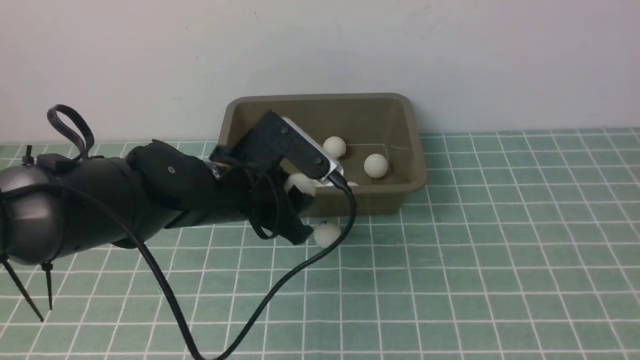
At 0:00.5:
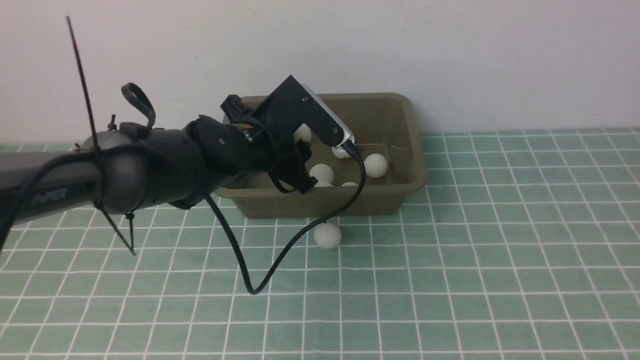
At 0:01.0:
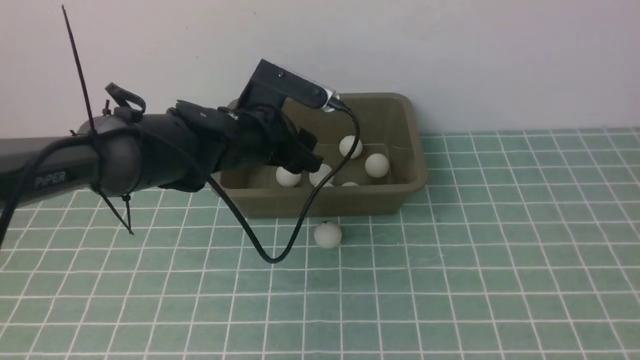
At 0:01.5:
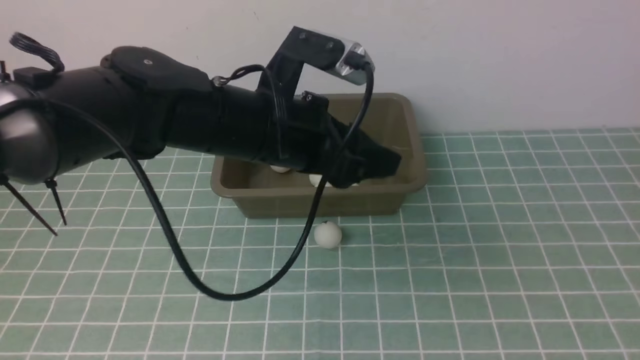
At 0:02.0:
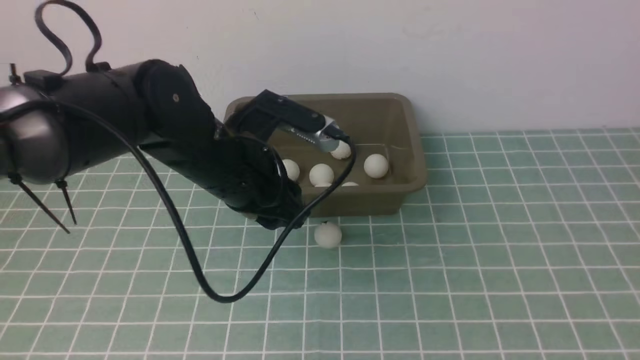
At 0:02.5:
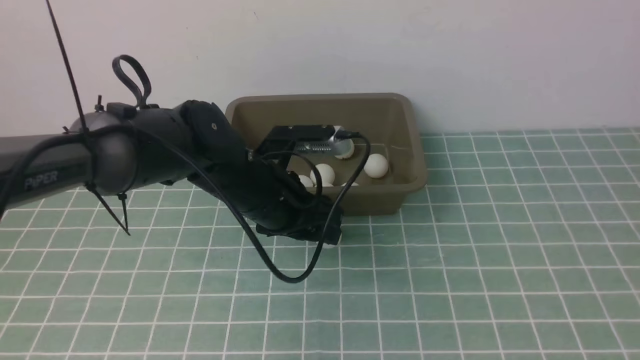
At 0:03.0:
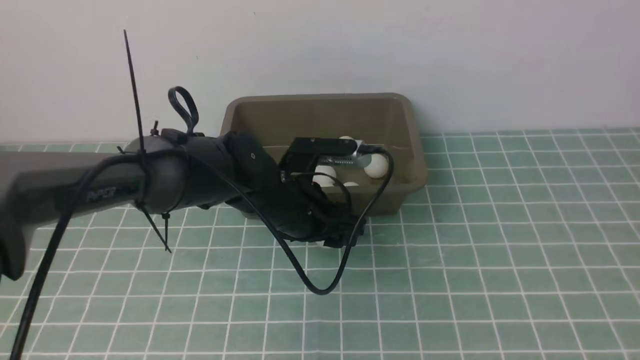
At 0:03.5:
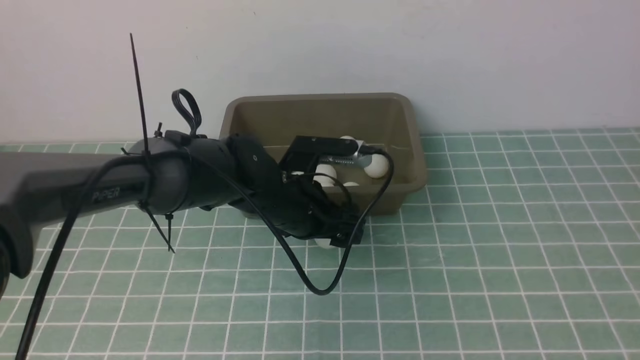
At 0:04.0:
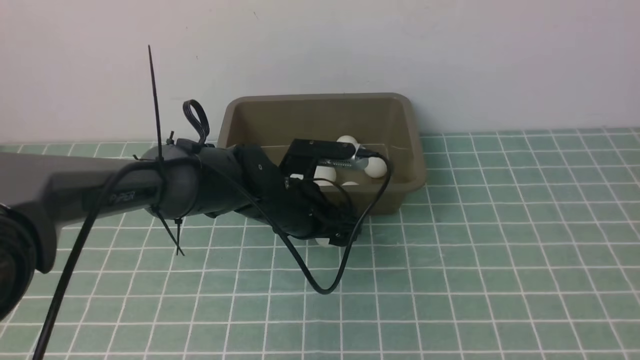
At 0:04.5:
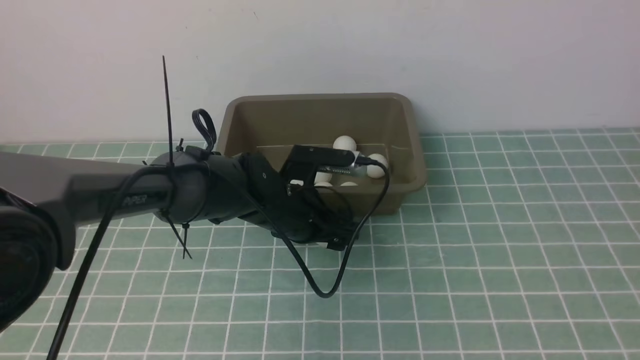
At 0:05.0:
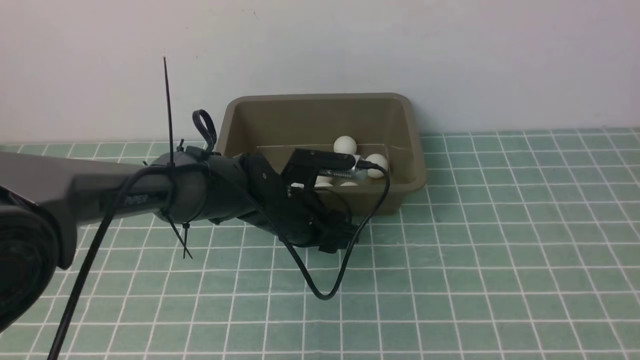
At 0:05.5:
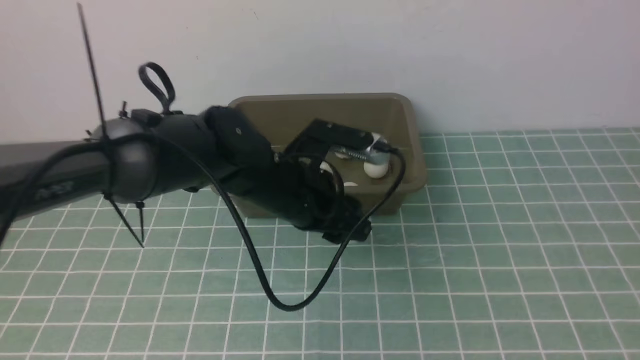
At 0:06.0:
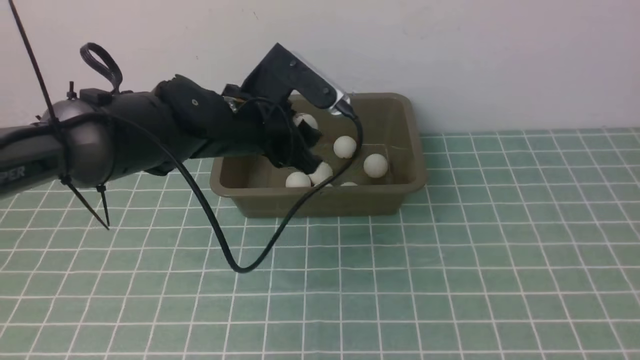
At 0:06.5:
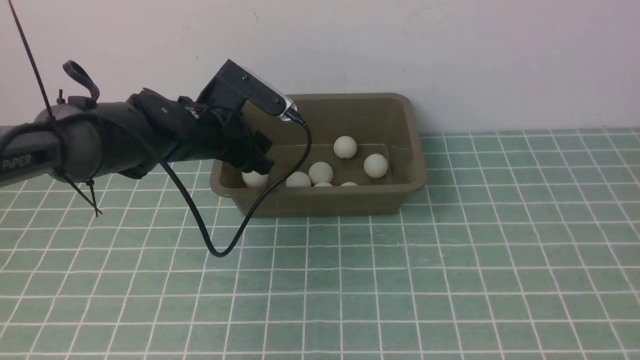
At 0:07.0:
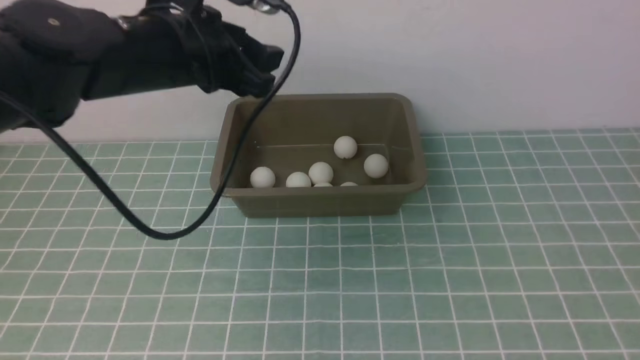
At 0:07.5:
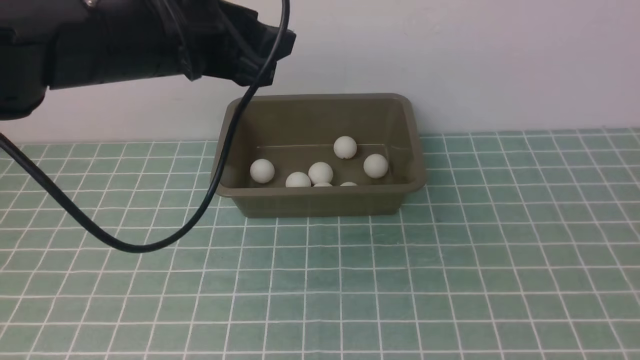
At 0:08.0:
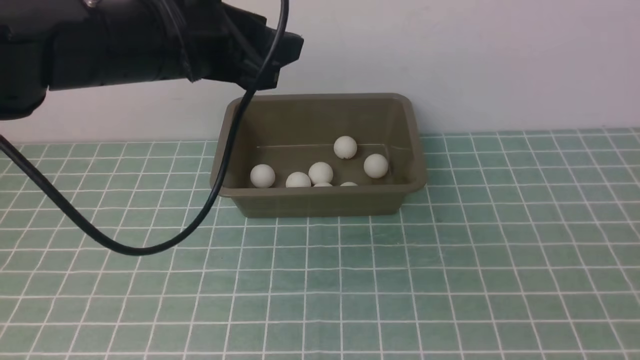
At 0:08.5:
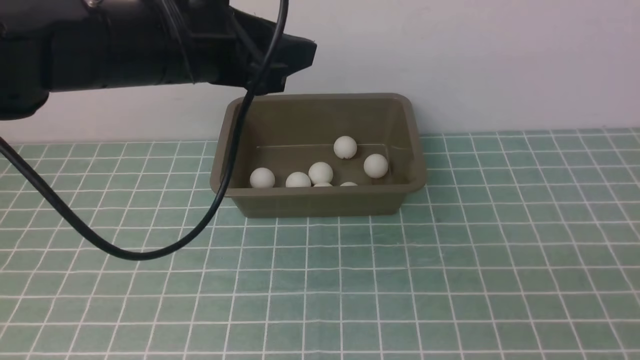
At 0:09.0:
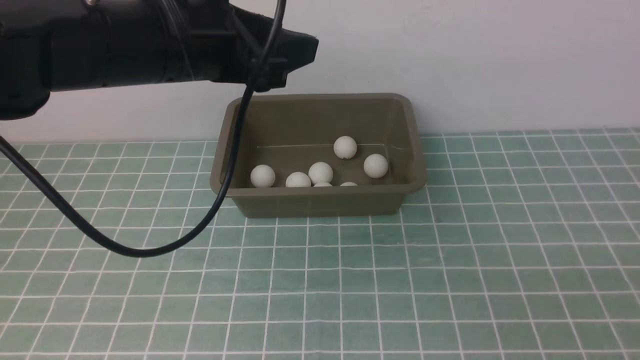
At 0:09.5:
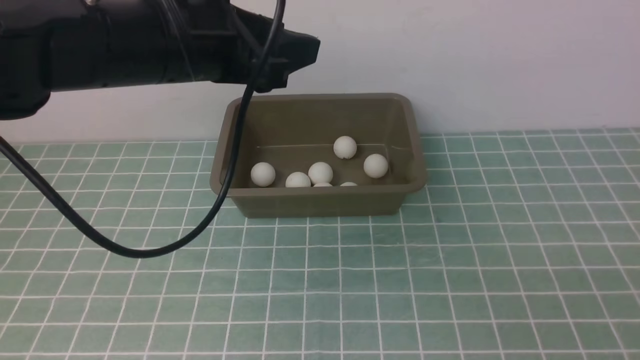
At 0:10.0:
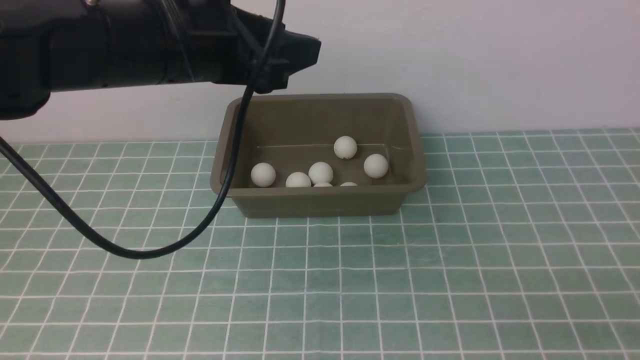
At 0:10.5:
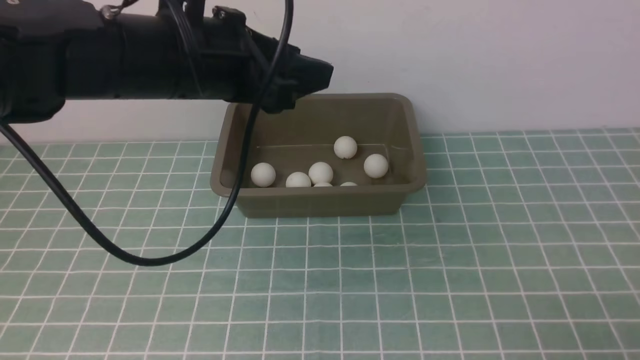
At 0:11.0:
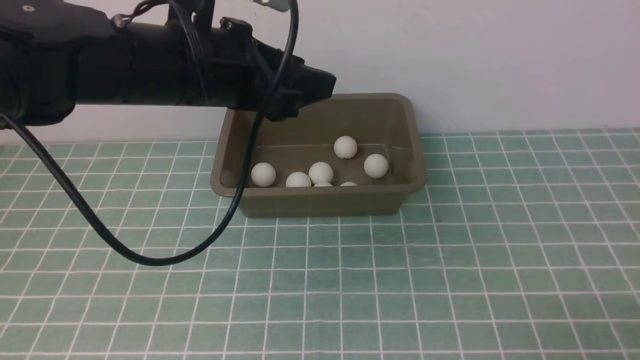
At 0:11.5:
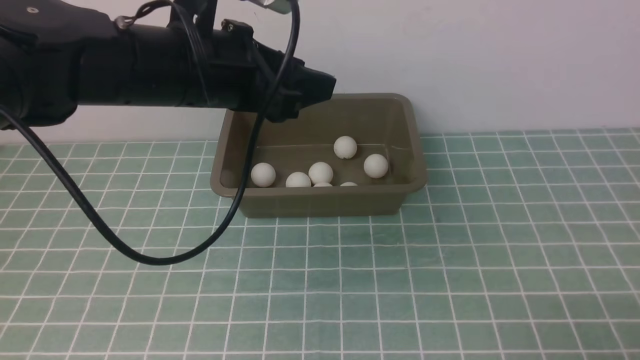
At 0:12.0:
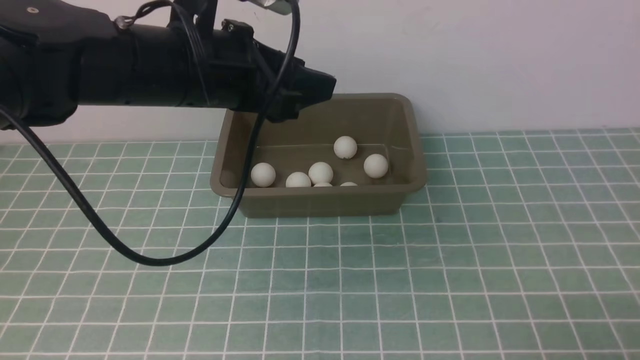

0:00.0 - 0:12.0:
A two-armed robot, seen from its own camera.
Step, 0:00.5 - 0:01.0: use the left arm to put the table tennis ball into the box.
Step, 0:01.5 - 0:05.0: use the left arm to clamp the table tennis ball closest to it.
Step, 0:05.5 - 0:06.5: use the left arm to put the table tennis ball into the box.
0:00.0 - 0:02.0: The left gripper opens, then closes once more.
0:02.0 - 0:04.0: The left gripper goes roughly 10 cm downward, and opens up.
0:04.0 - 0:06.0: The left gripper goes about 10 cm upward and to the left, and closes.
0:06.0 - 0:08.0: The right gripper is displaced downward by approximately 20 cm; the left gripper is displaced upward and backward by approximately 15 cm.
0:08.0 - 0:10.0: The right gripper goes approximately 10 cm downward.
0:10.0 - 0:12.0: The grippers move only a little.

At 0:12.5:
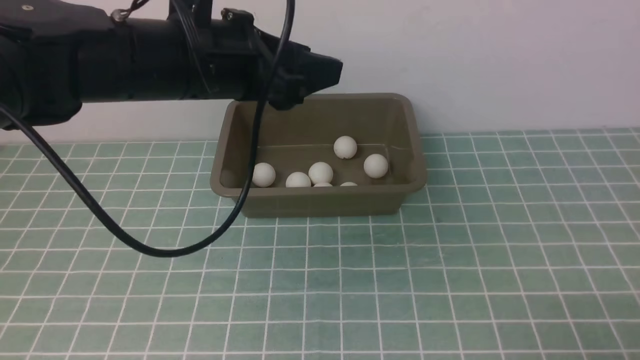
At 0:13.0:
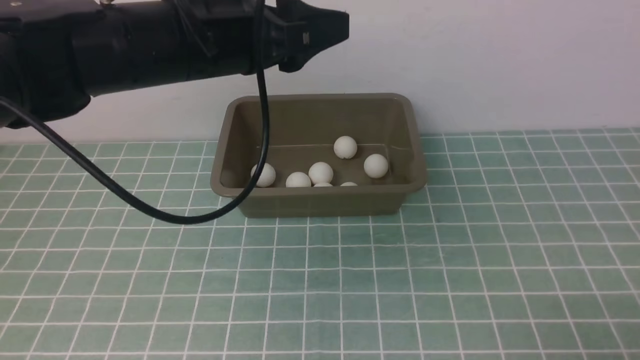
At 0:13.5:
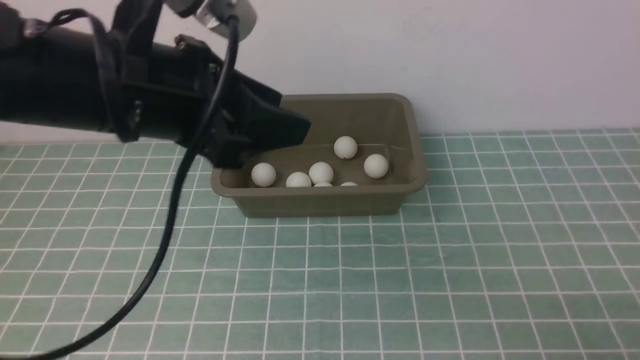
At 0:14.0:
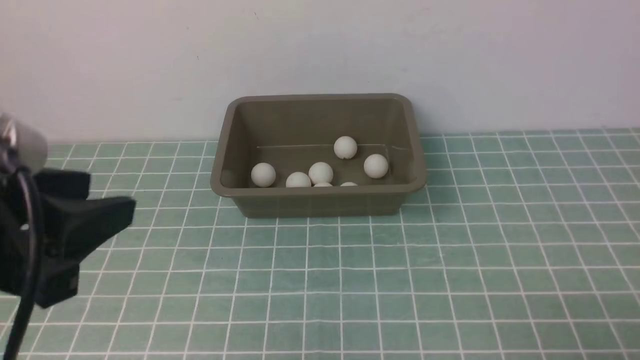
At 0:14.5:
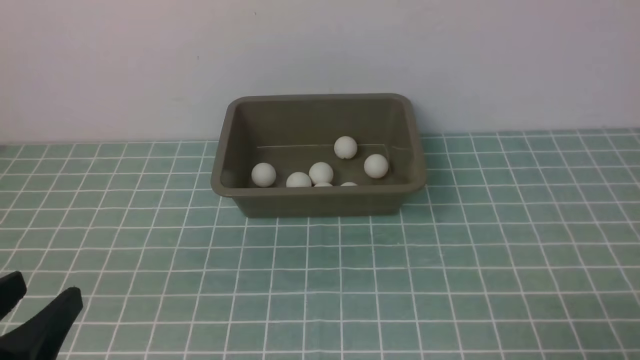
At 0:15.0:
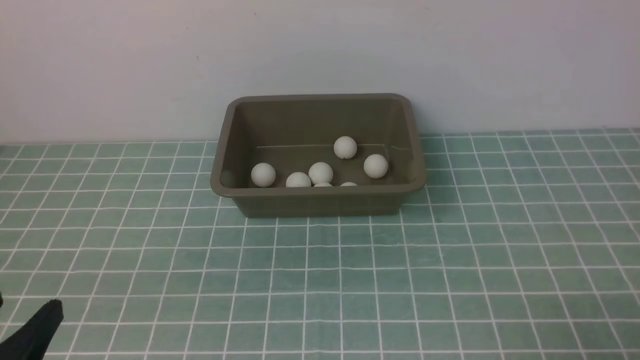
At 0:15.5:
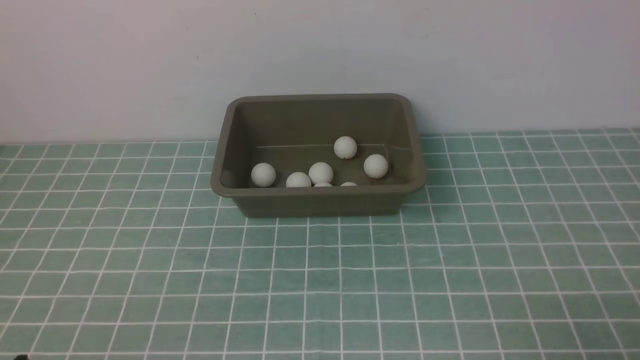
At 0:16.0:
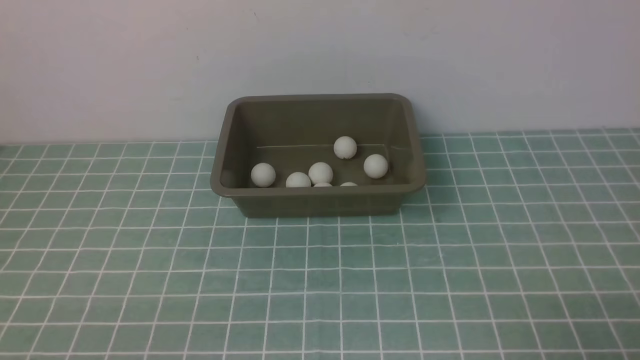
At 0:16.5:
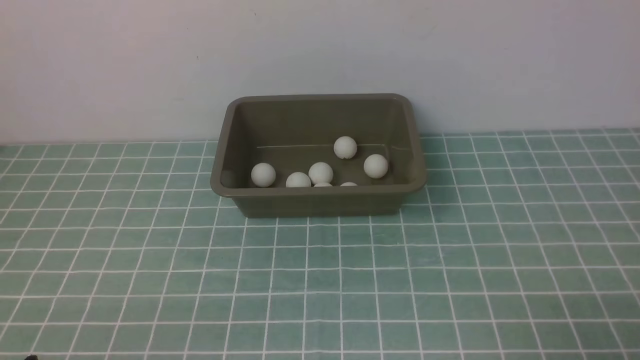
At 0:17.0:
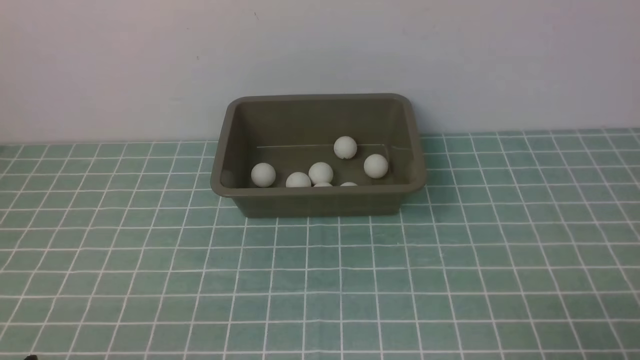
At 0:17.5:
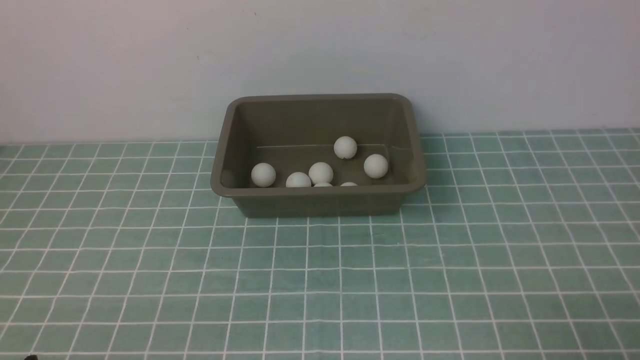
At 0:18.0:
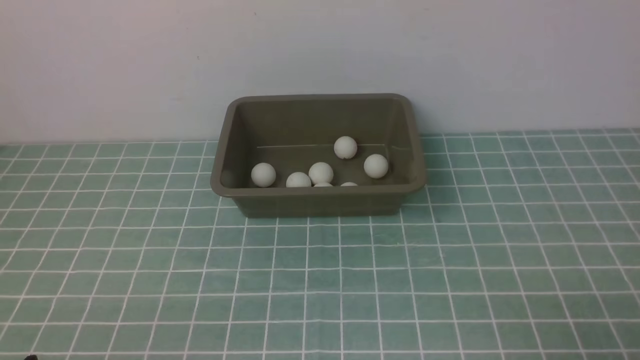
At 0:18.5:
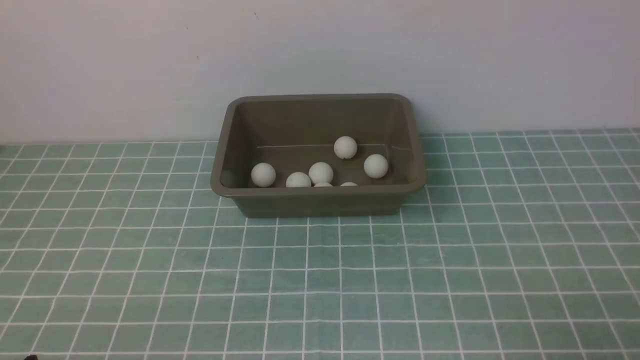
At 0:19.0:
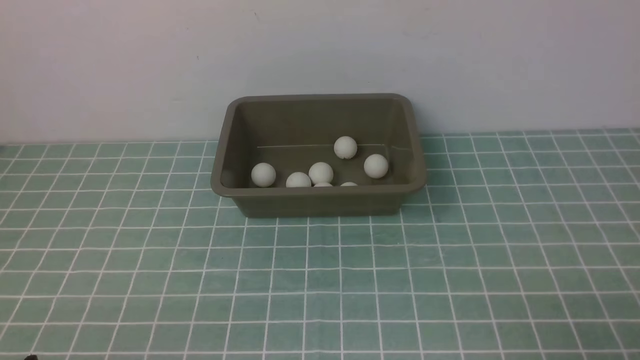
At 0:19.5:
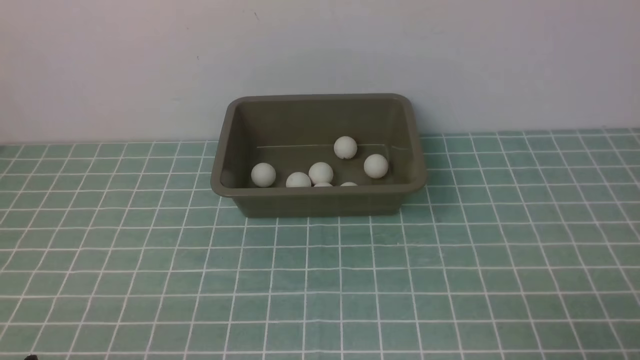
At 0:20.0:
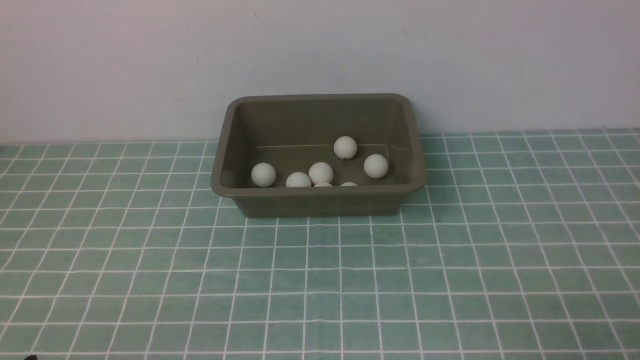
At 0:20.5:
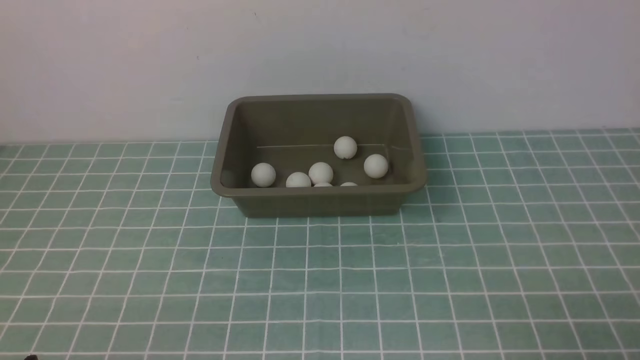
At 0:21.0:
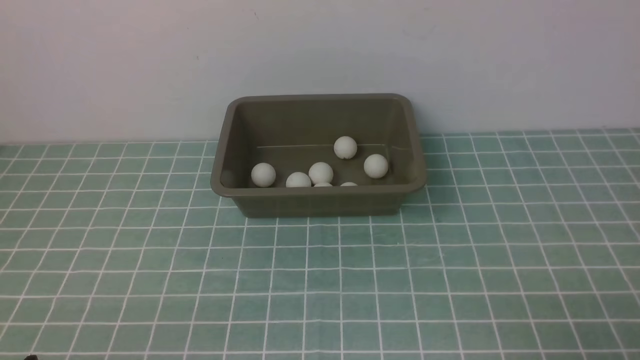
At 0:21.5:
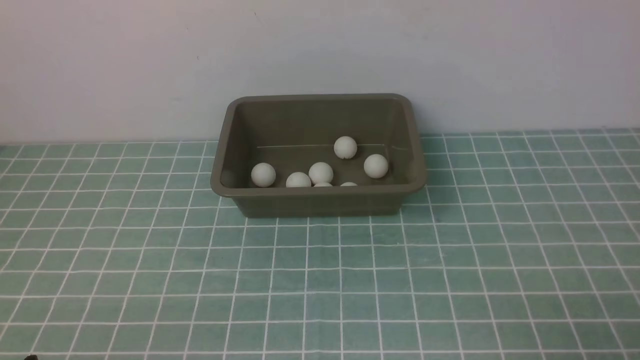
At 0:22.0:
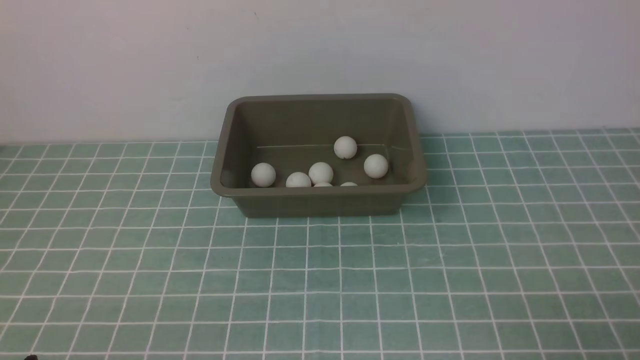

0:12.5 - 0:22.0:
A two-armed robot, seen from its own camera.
0:12.5 - 0:14.5: The left gripper goes approximately 30 cm backward and to the left.
0:14.5 - 0:16.5: The left gripper heads downward, covering approximately 10 cm.
0:18.0 - 0:22.0: The two grippers keep their place.
